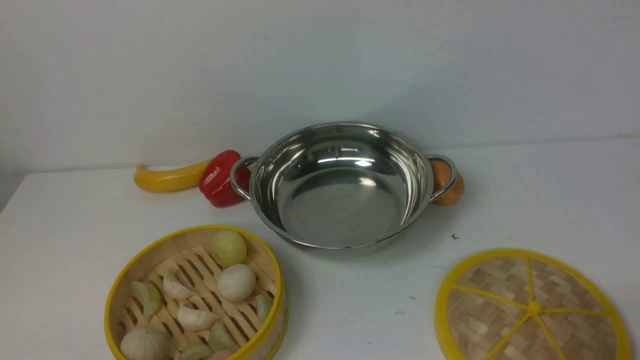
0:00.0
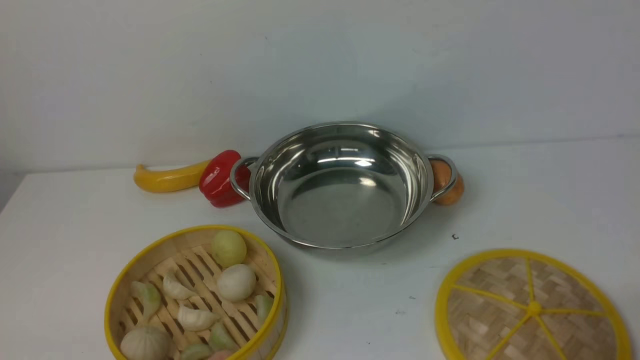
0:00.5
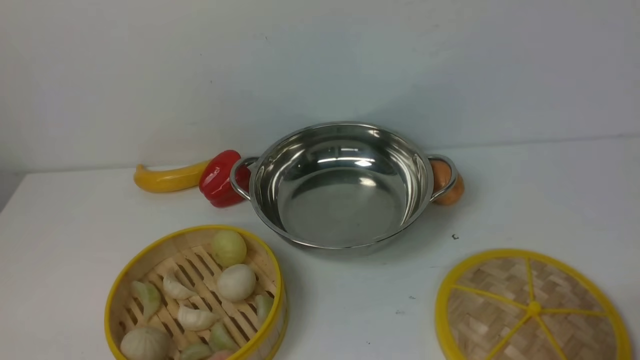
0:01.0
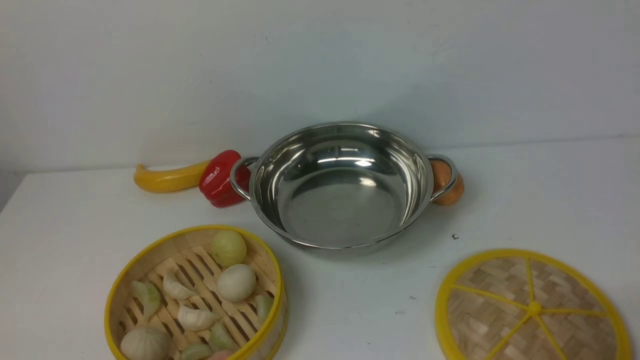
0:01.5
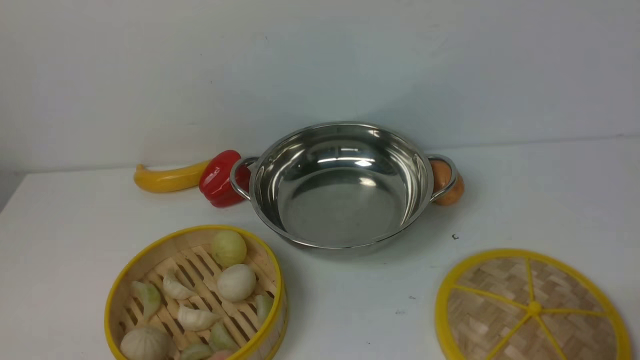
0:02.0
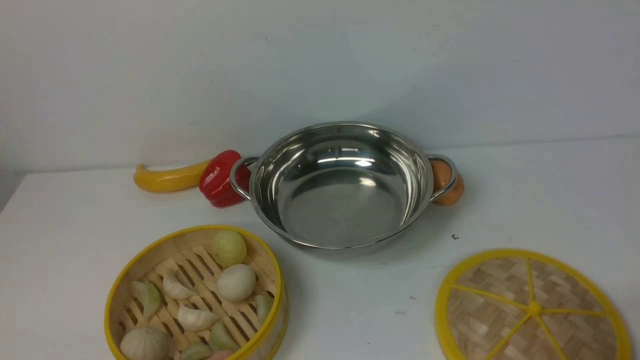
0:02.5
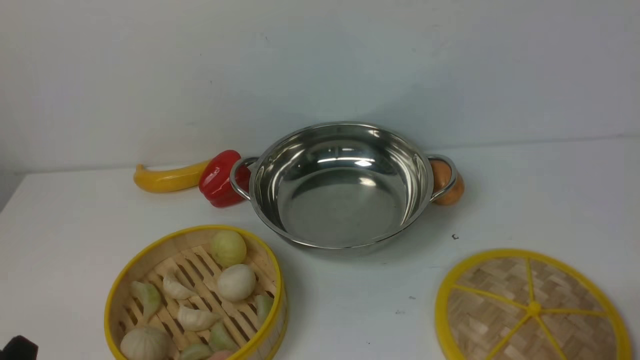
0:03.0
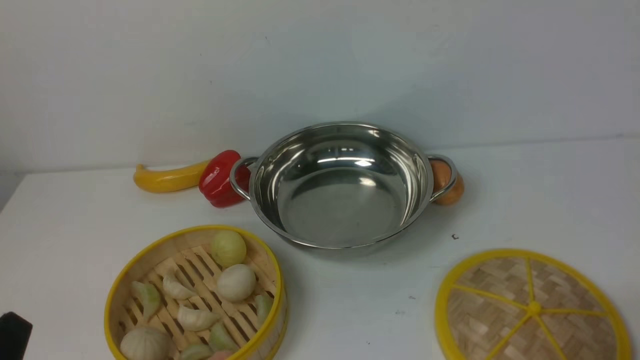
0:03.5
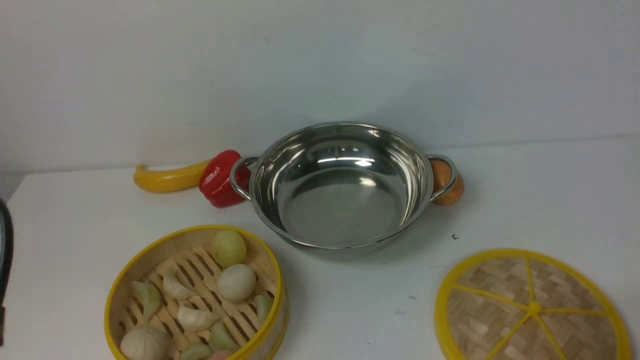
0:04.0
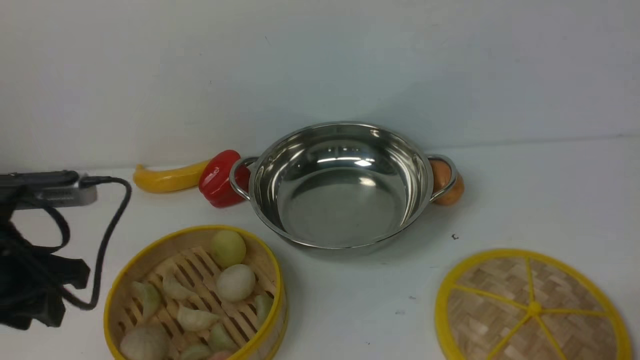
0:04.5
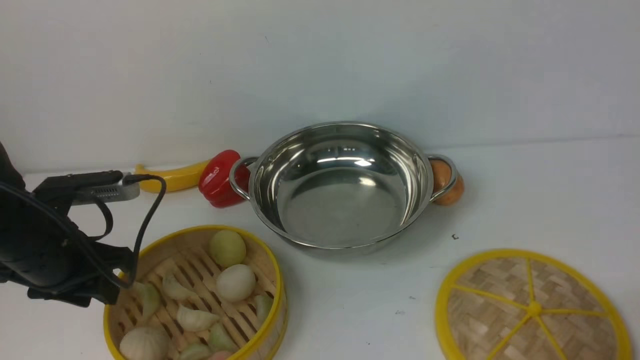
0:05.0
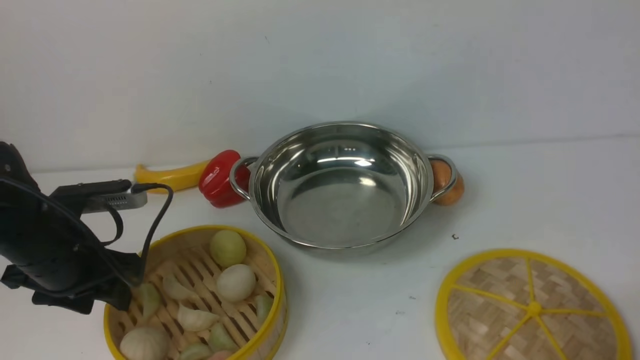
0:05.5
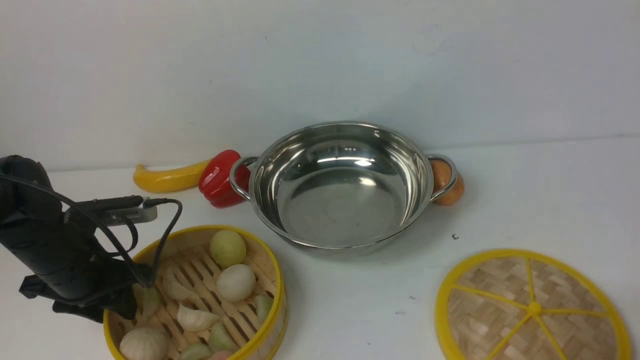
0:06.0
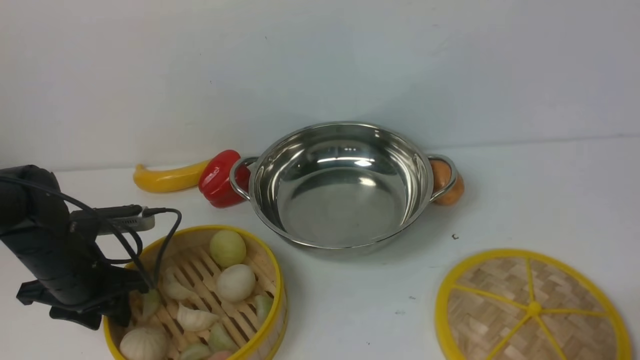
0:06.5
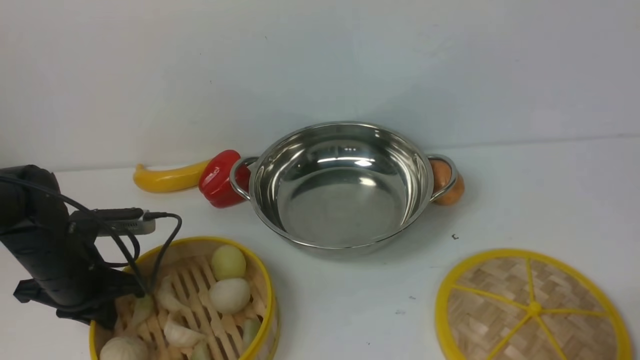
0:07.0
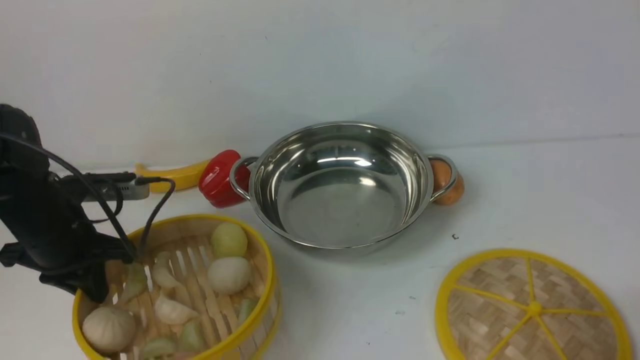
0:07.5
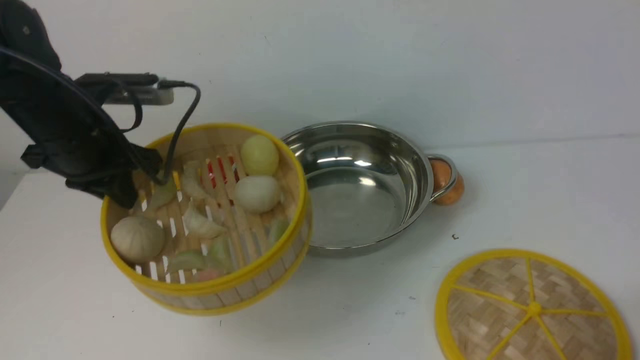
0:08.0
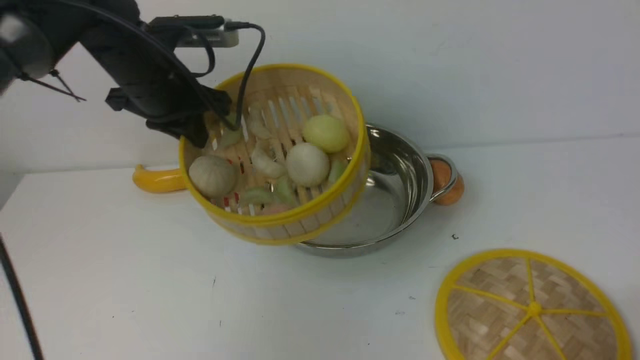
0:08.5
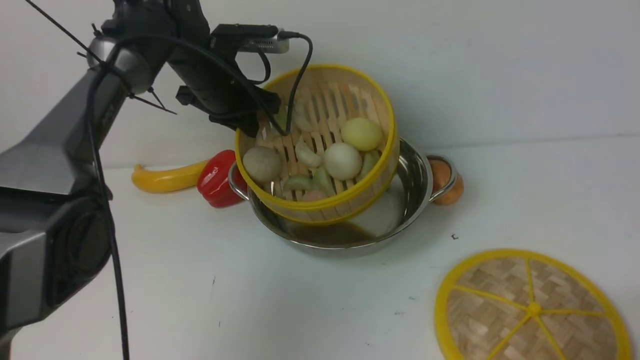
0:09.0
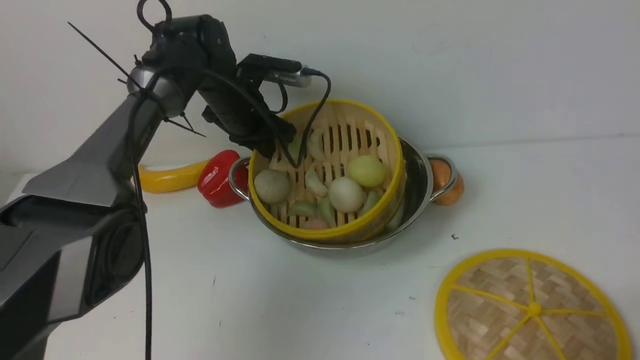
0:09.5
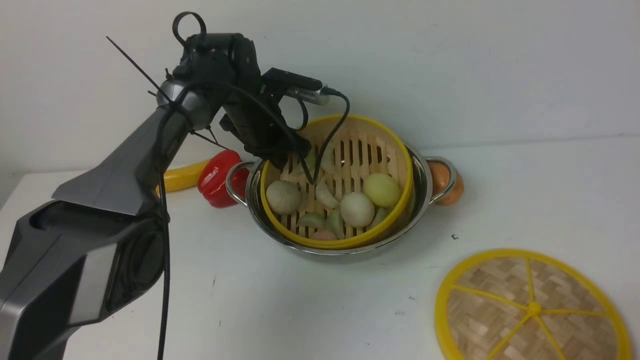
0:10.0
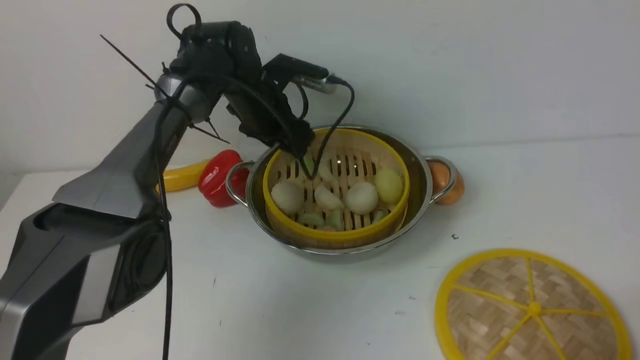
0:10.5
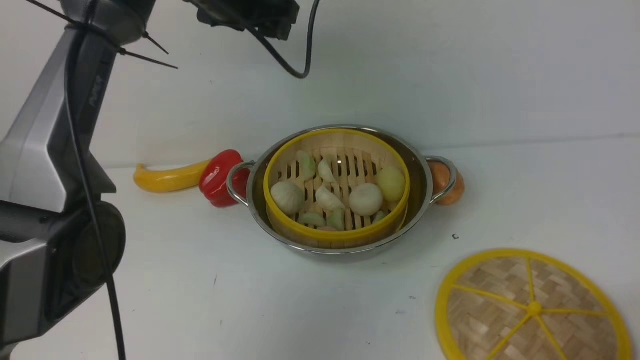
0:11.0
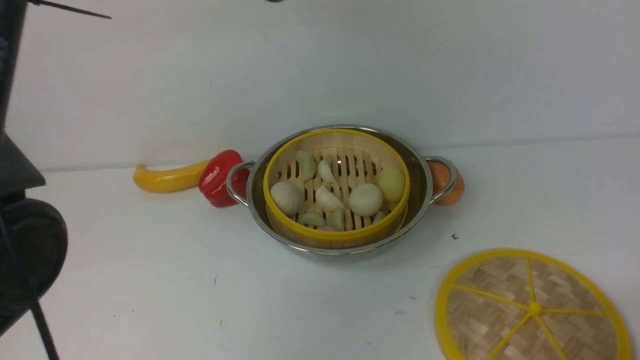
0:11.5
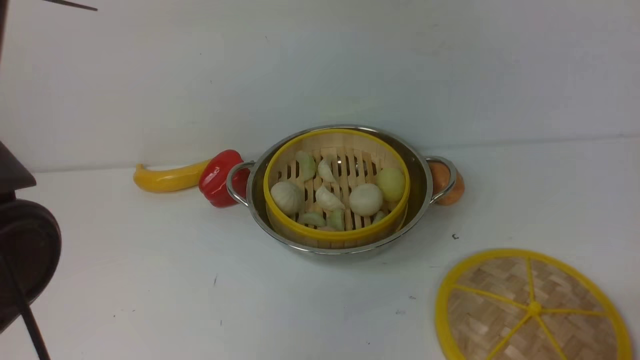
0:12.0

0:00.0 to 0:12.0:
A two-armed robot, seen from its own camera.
Task of the whole recording: place the steamer in the pot on the white table, and put the lid on the steamer.
Step, 0:00.0 to 0:07.5: use the left arm to lift the steamer closest to it.
Step, 0:08.0 to 0:10.5: use the left arm to put the steamer into the iron steamer pot in the middle.
0:00.0 to 0:02.0: Both grippers stay put.
0:04.0 to 0:06.0: The left gripper moves forward and downward, some 25 cm.
0:06.0 to 0:08.0: The left gripper is displaced upward and forward by about 15 cm, and closes.
0:08.0 to 0:10.0: The left gripper heads forward, to the right and downward, covering approximately 25 cm.
0:10.0 to 0:12.0: The left gripper shifts approximately 30 cm upward, and opens and closes again.

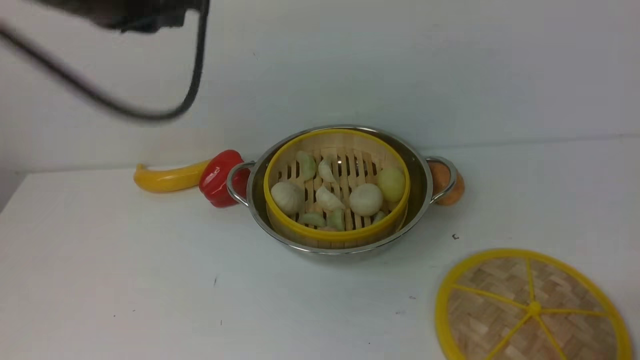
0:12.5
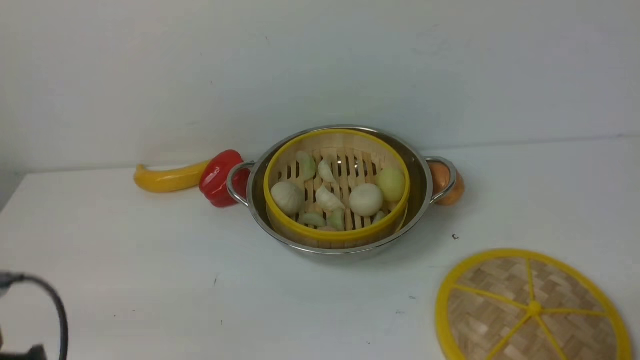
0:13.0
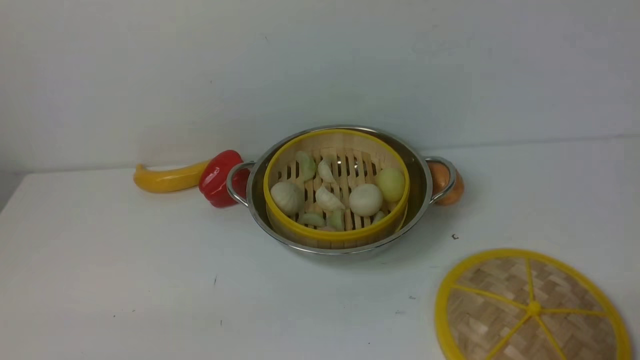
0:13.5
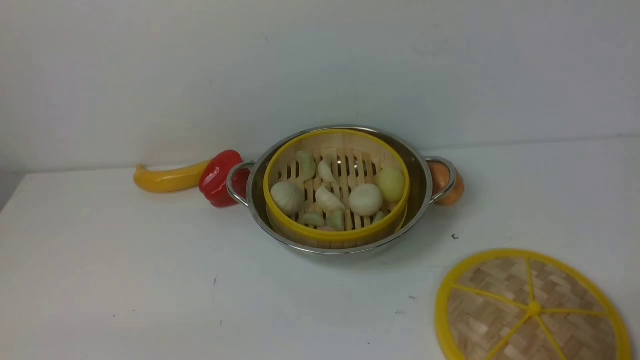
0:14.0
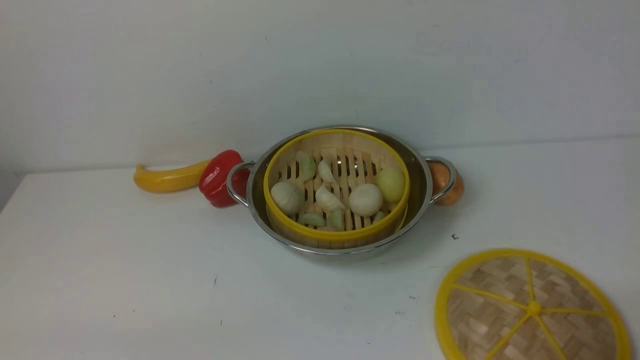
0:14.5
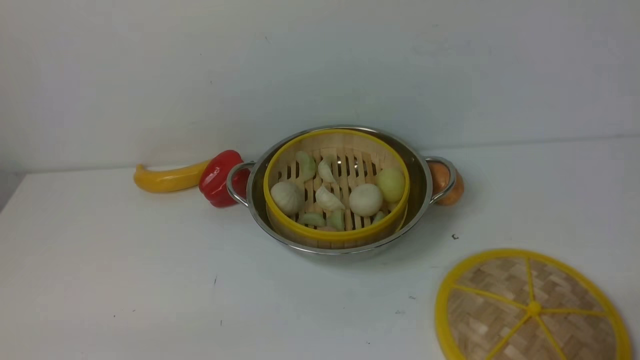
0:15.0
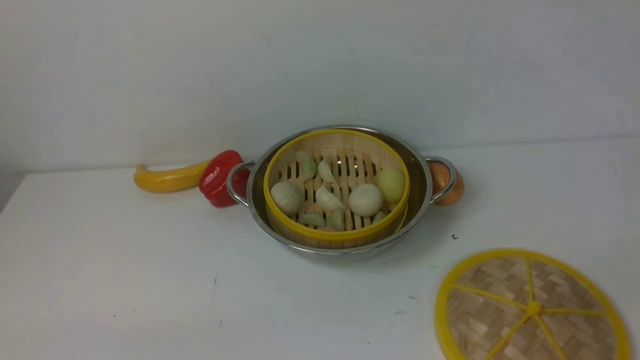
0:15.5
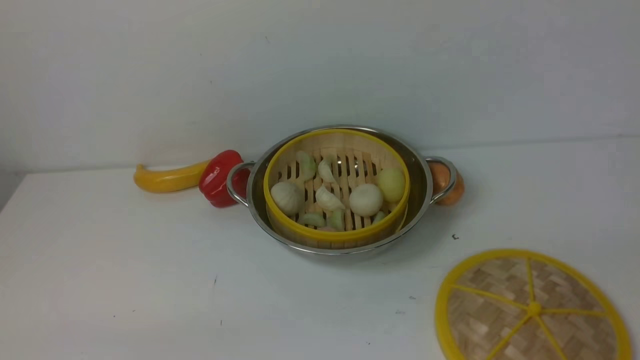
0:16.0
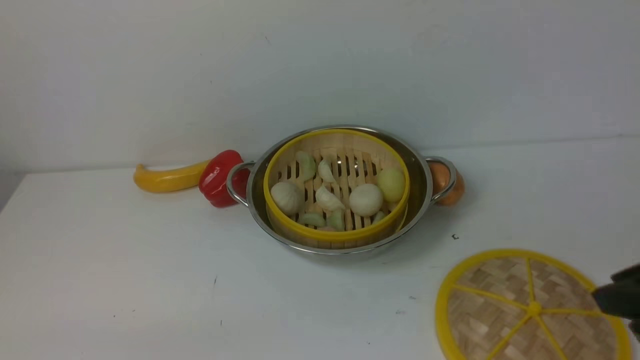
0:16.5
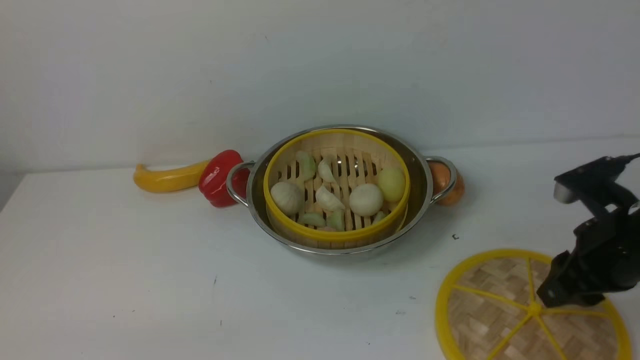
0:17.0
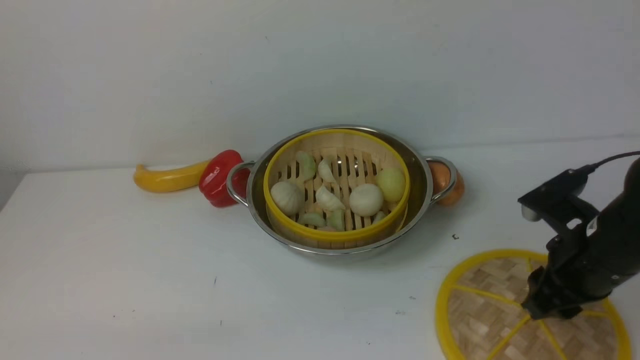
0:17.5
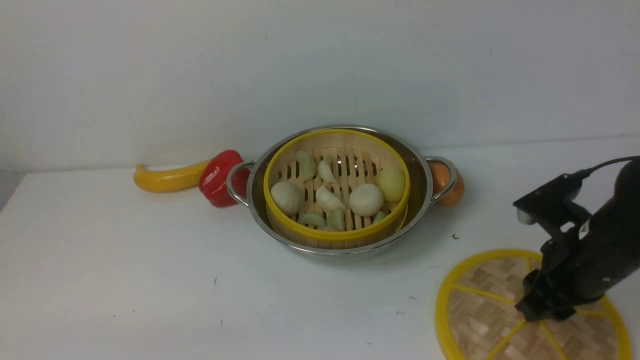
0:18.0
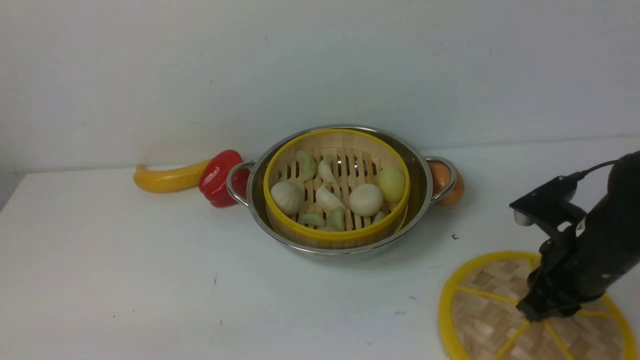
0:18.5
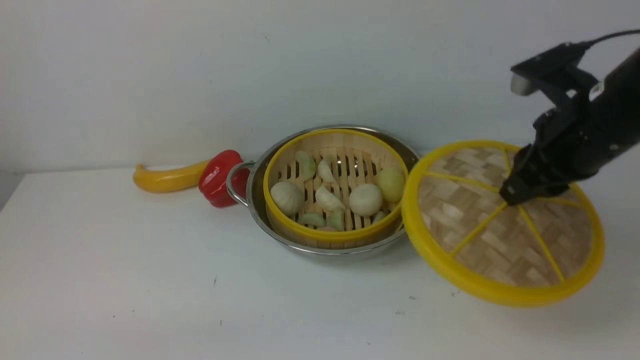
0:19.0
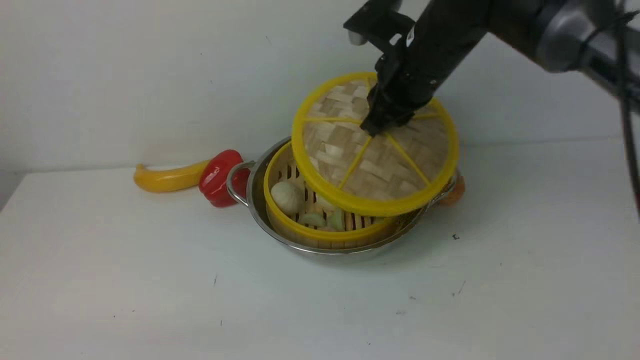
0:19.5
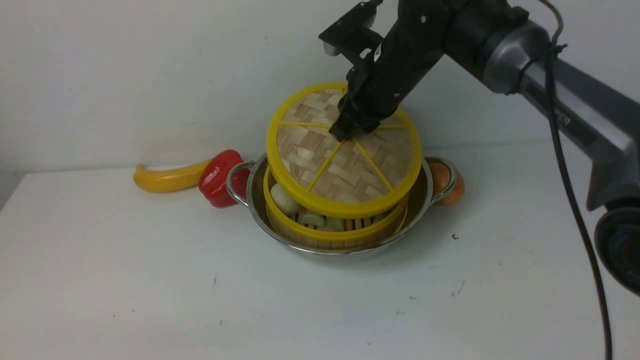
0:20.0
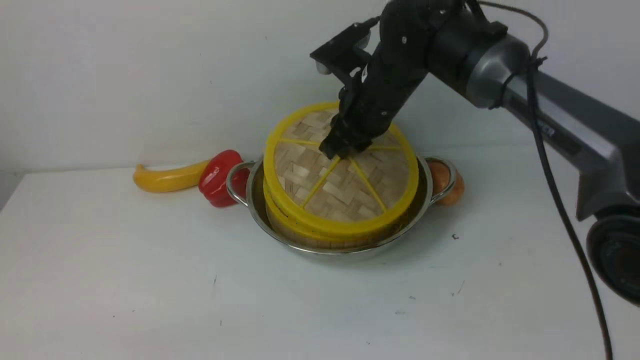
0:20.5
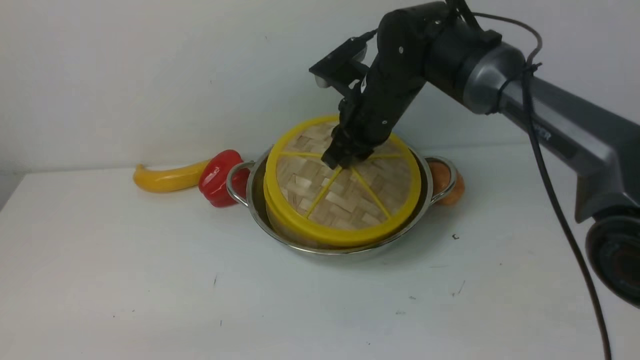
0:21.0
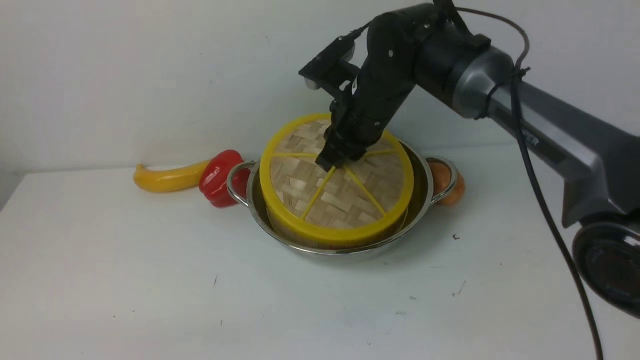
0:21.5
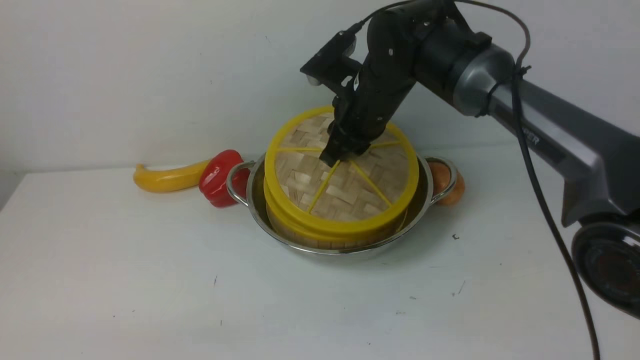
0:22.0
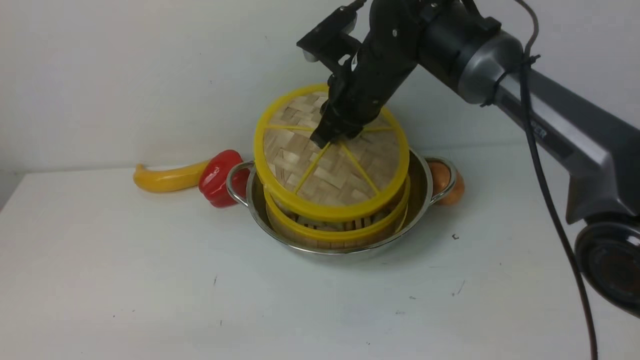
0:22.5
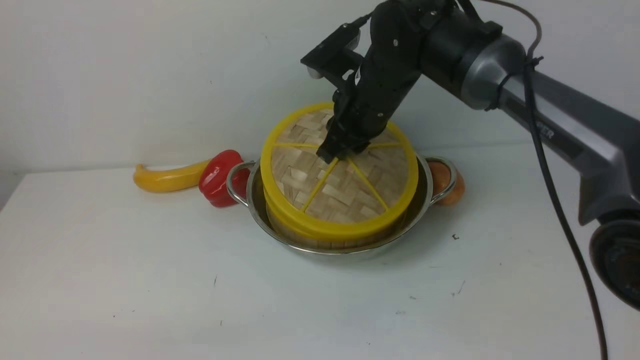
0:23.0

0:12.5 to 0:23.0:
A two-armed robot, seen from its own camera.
Task of the whole recording: place the steamer in the pot on the white table, and put the lid on the steamer.
Step, 0:12.5 to 0:18.5: use the right arm to lift the lid of the steamer.
0:12.5 to 0:14.5: The left gripper moves backward and downward, roughly 35 cm.
0:14.5 to 0:16.5: The right gripper goes approximately 15 cm forward and upward.
0:16.5 to 0:19.0: The right gripper shifts some 15 cm forward and to the left.
0:19.0 to 0:21.0: The right gripper is displaced to the left and forward by approximately 20 cm.
0:21.0 to 0:23.0: The grippers stay close to where they were, moving slightly.
